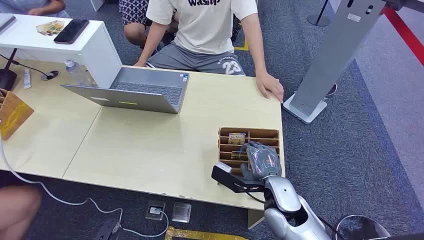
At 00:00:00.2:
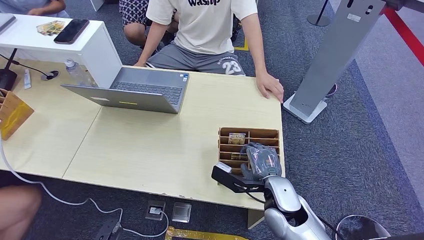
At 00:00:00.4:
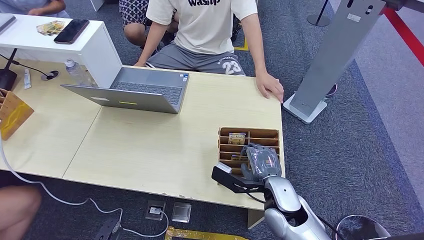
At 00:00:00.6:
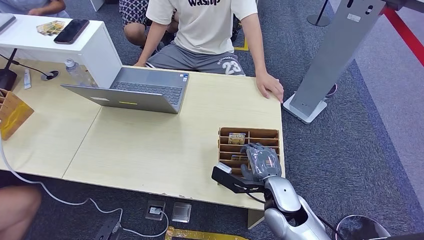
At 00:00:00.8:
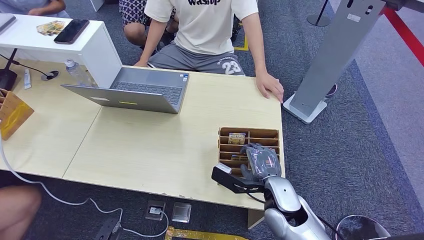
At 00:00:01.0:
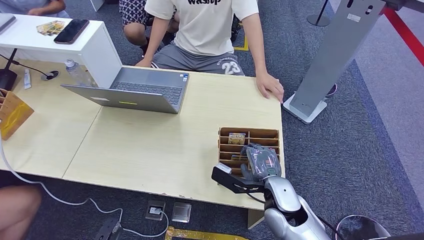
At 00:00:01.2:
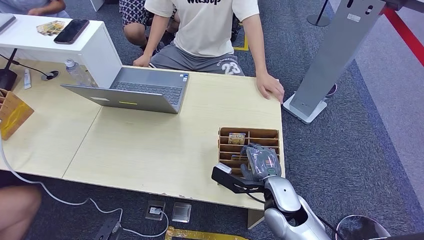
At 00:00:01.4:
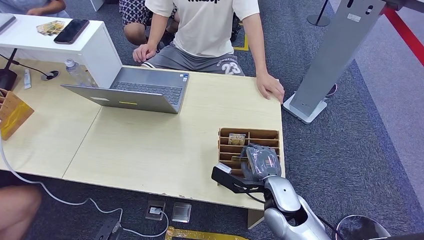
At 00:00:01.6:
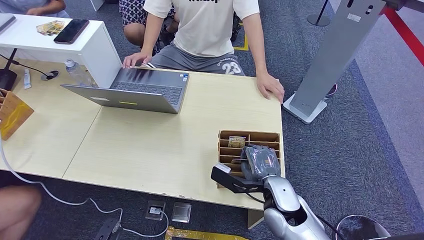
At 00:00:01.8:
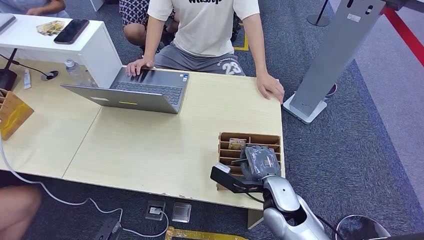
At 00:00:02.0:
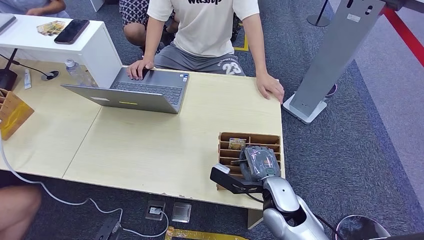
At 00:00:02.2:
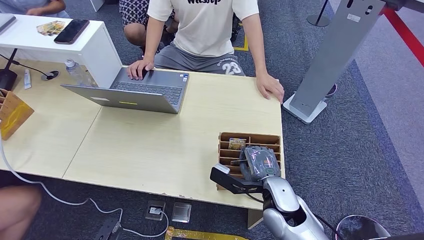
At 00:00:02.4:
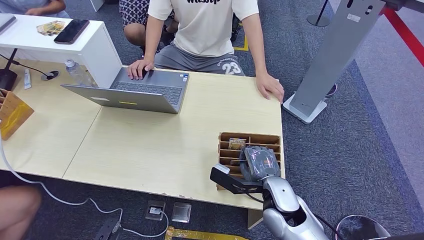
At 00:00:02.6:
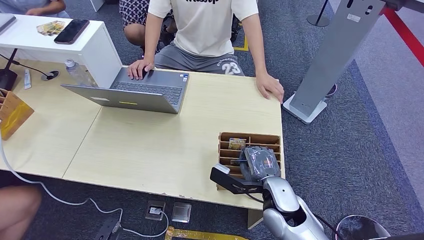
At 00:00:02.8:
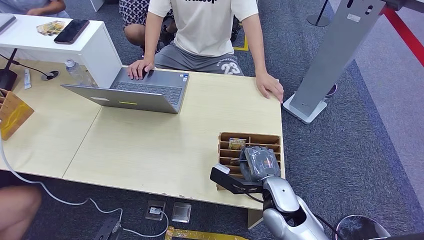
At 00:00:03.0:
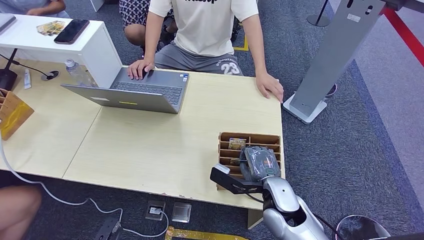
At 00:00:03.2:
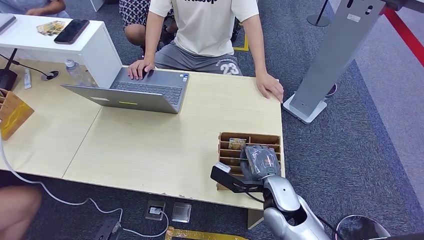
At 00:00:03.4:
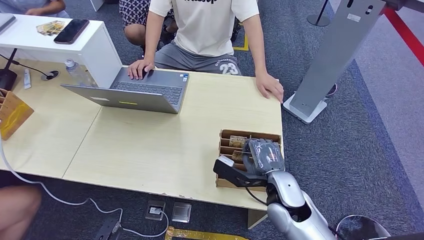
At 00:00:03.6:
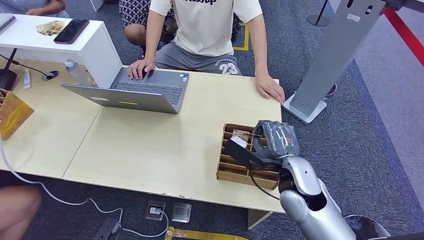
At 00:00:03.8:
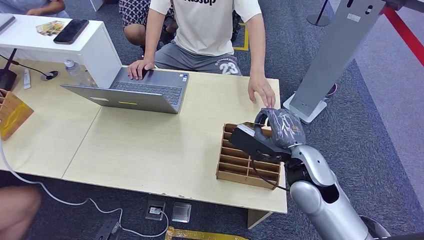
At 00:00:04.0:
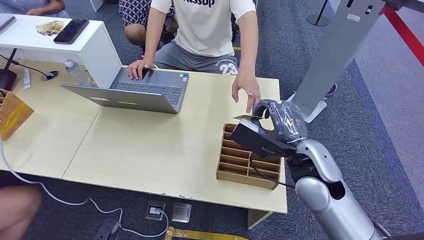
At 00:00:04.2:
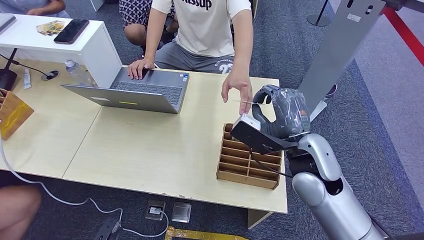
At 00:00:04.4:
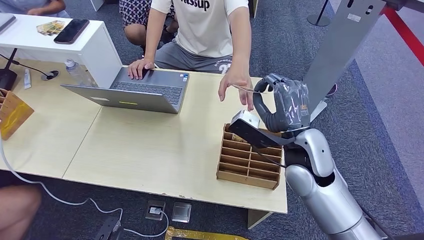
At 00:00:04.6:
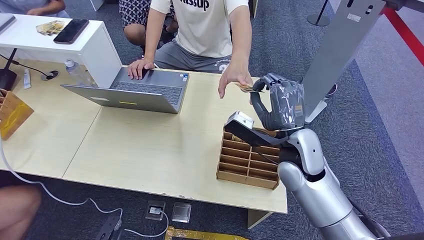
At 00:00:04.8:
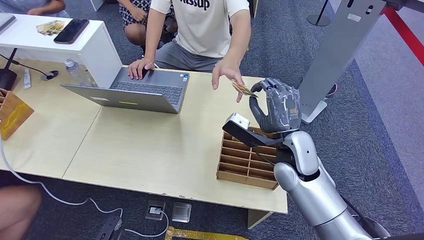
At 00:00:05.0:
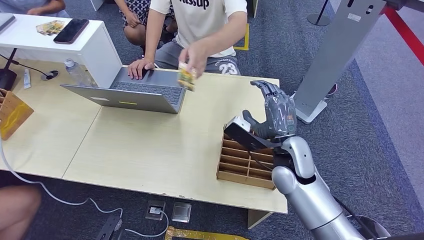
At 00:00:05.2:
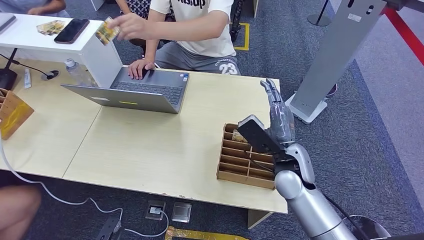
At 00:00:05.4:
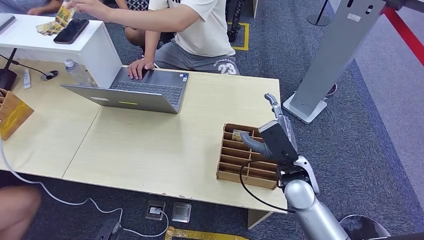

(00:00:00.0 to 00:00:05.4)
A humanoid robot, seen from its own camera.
Step, 00:00:00.0 - 00:00:03.8: Pick up the room card from the card holder.
Step, 00:00:04.2 - 00:00:05.4: Hand the room card to the target.
00:00:01.4 - 00:00:02.8: The two hands keep their place.
00:00:02.8 - 00:00:04.0: The right hand shifts approximately 10 cm upward.
00:00:04.0 - 00:00:05.4: The right hand shifts roughly 10 cm downward.
